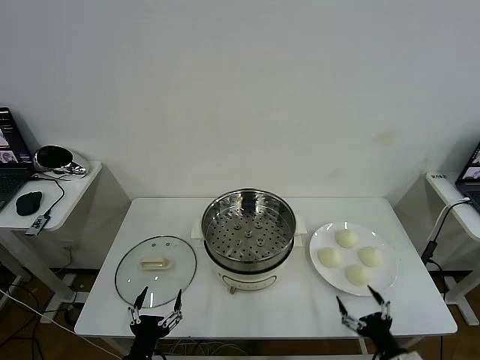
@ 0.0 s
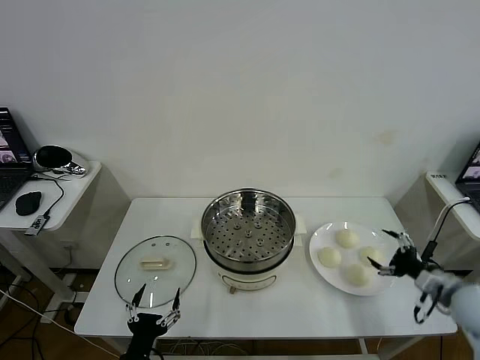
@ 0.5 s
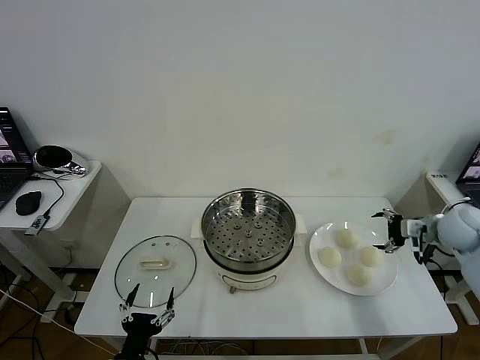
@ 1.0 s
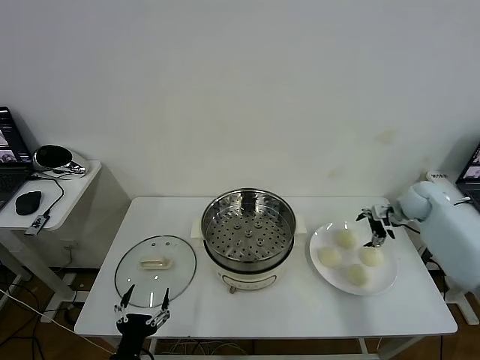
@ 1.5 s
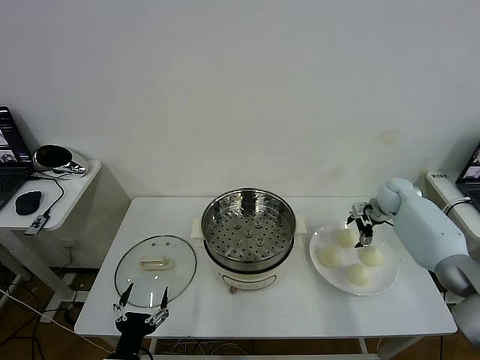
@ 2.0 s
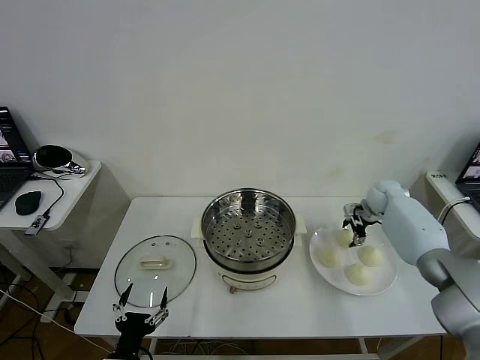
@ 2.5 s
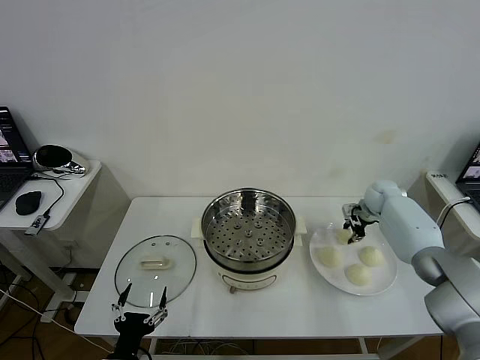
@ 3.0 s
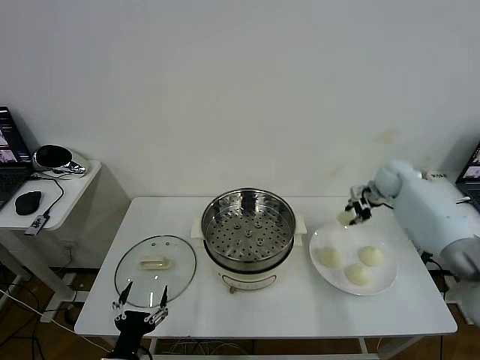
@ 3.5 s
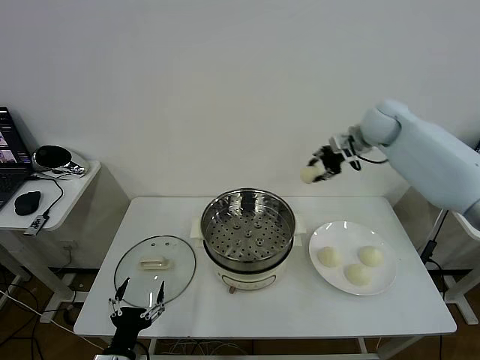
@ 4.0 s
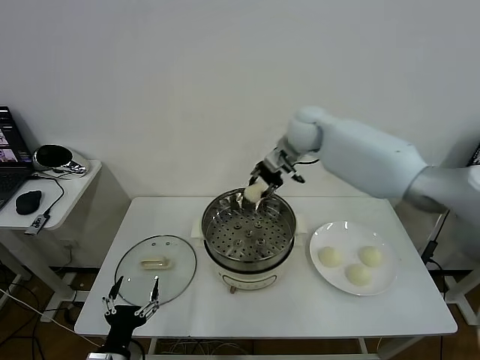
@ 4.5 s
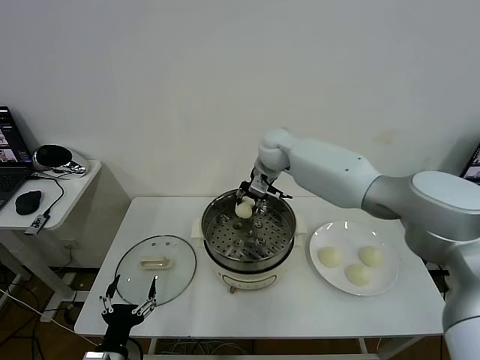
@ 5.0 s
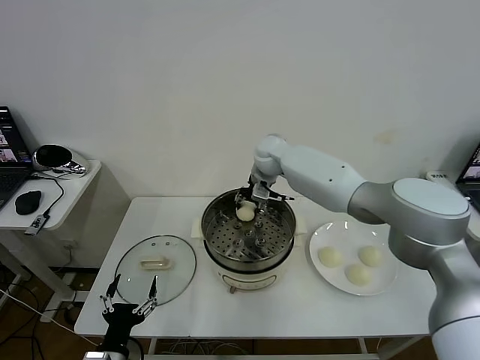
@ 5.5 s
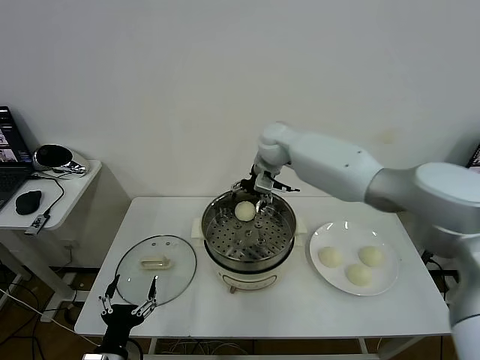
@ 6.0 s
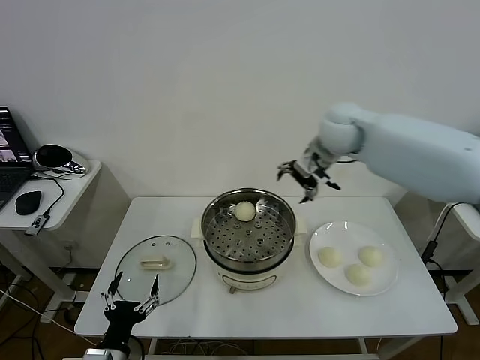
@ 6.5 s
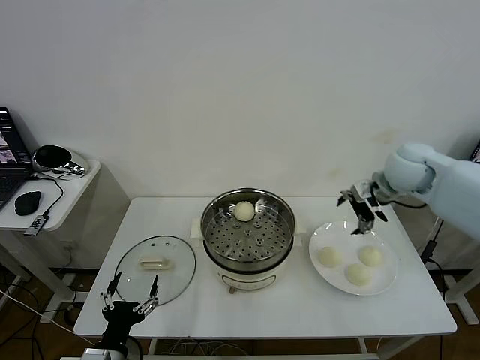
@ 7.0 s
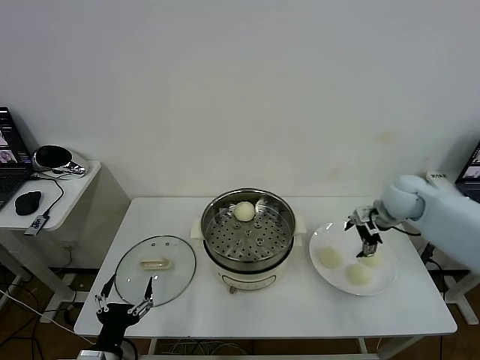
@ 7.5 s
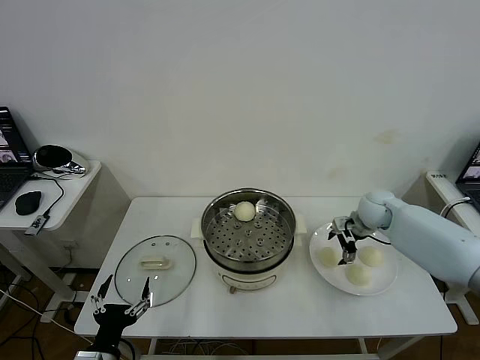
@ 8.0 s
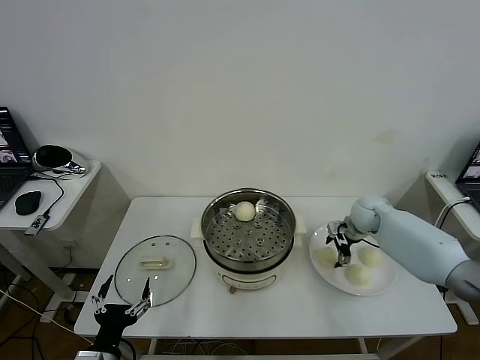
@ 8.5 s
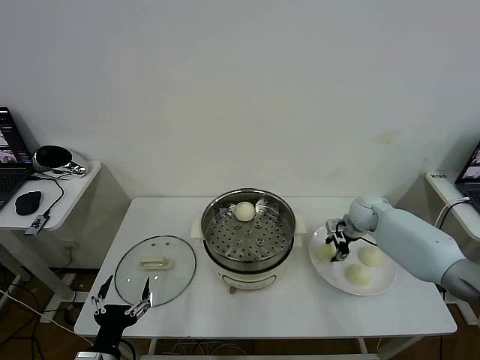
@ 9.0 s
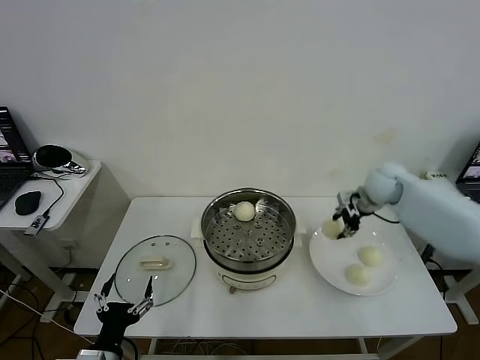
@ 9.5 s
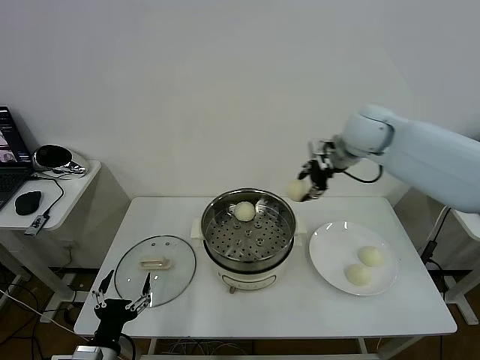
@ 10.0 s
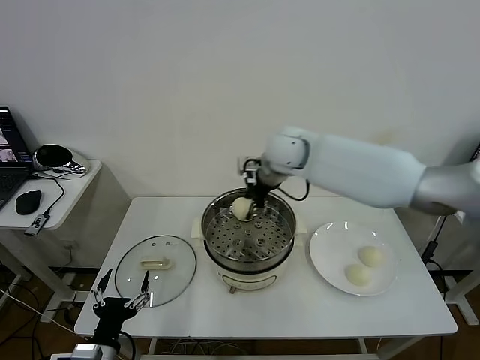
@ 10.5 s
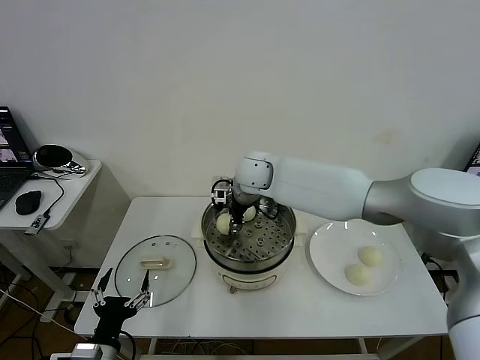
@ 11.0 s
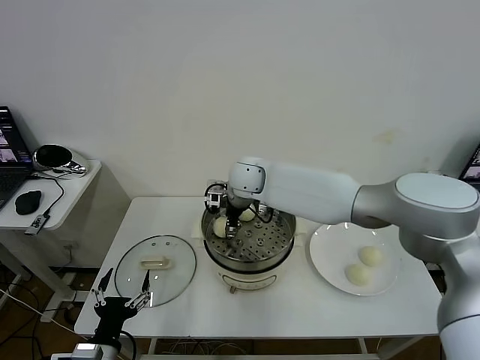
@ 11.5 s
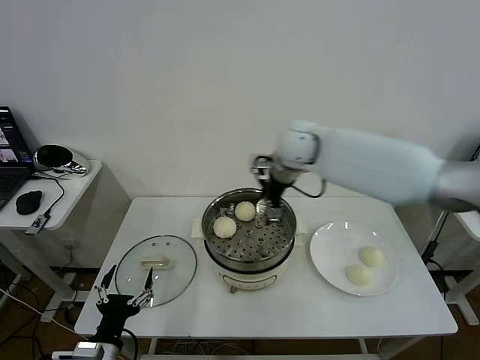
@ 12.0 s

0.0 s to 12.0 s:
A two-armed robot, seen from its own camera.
Task of the whole recording: take steamed baozi put them in steamer then cover it.
Step, 0.0 to 2.5 s: Grasp the baozi in the plate with right gripper.
Step, 3.0 to 5.5 s: Place the baozi on the steamer with right gripper.
Step, 6.0 to 8.5 s: Grasp the baozi in the plate with right gripper.
Step, 9.5 to 11.5 s: Place the baozi on the steamer with right gripper.
2.0 to 4.0 s: The right gripper moves upward and to the left, roughly 25 cm, and closes.
4.0 to 6.0 s: The right gripper heads to the left, covering about 15 cm, and opens.
6.0 to 8.0 s: The right gripper shifts about 30 cm to the right and downward.
8.0 to 10.0 s: The right gripper moves upward and to the left, roughly 25 cm, and closes.
10.0 to 12.0 s: The right gripper is displaced to the left by some 10 cm, and opens up.

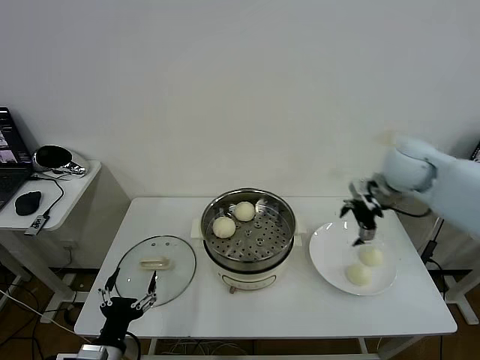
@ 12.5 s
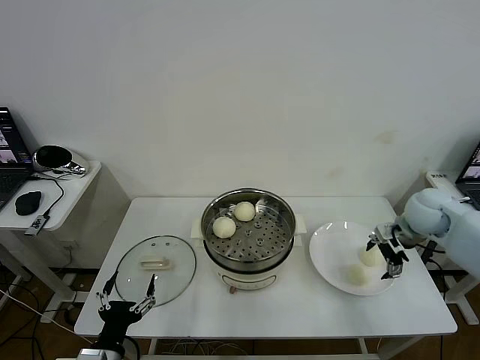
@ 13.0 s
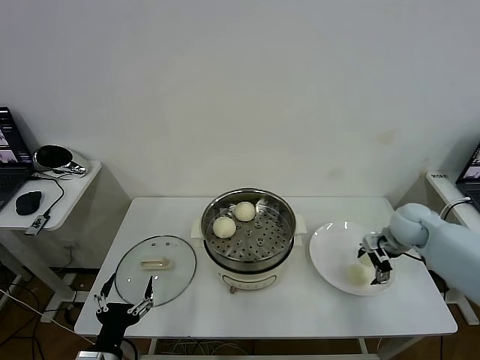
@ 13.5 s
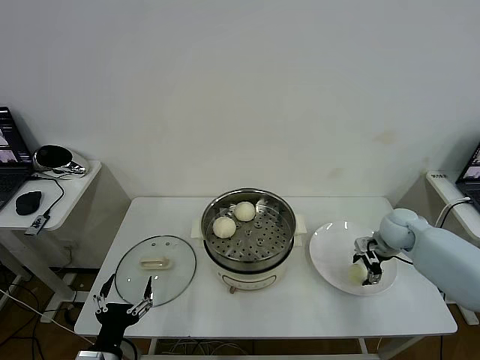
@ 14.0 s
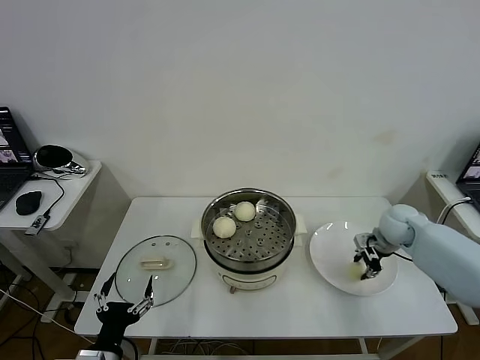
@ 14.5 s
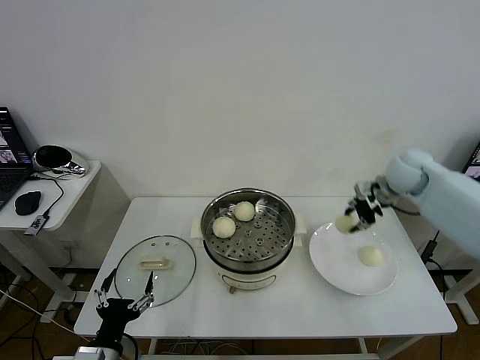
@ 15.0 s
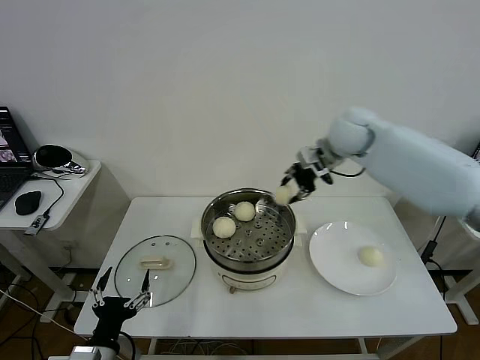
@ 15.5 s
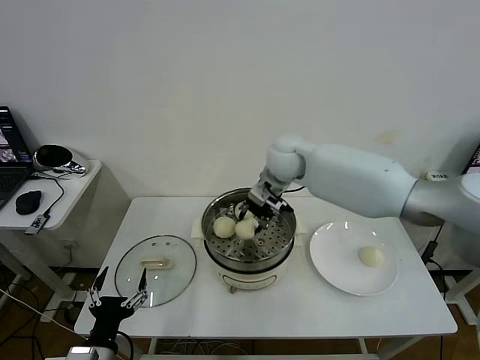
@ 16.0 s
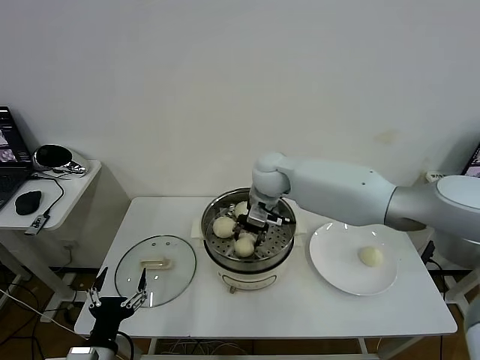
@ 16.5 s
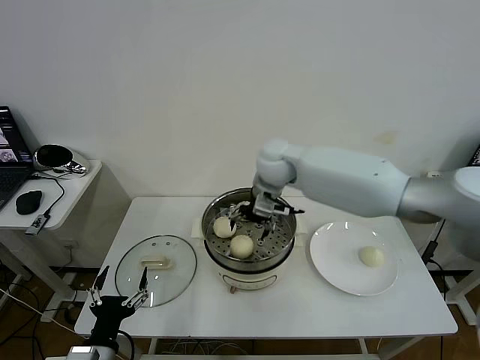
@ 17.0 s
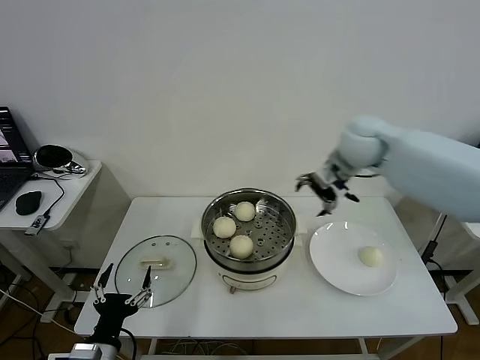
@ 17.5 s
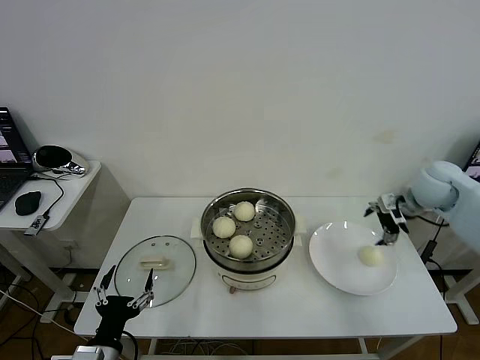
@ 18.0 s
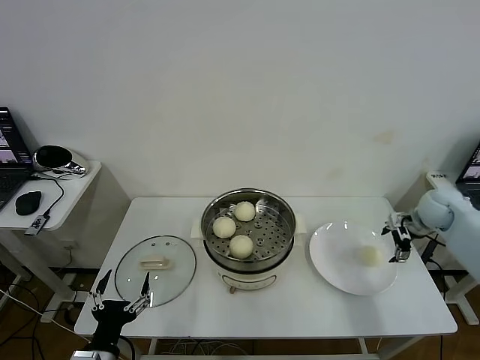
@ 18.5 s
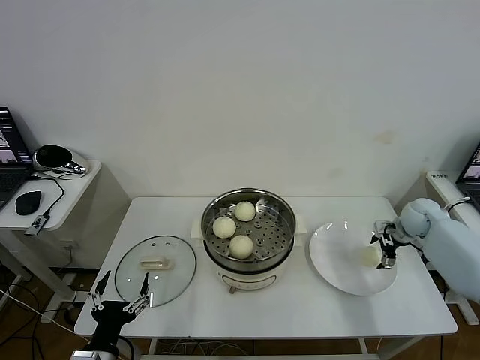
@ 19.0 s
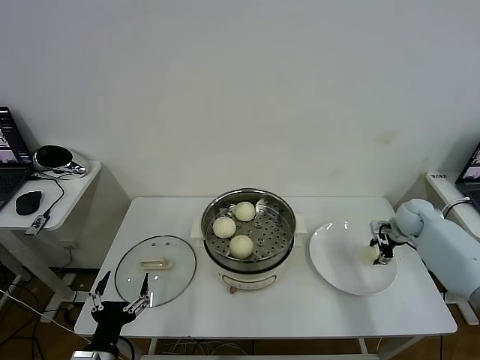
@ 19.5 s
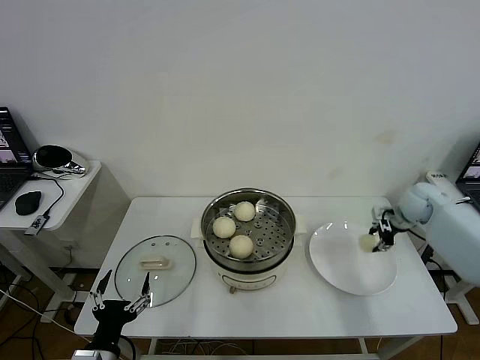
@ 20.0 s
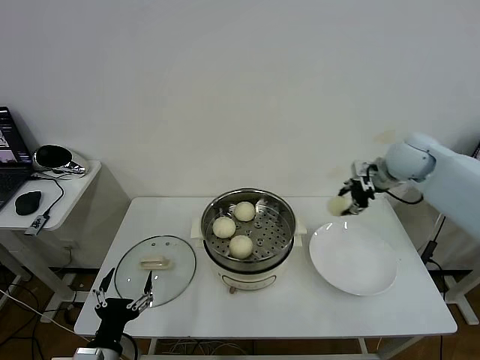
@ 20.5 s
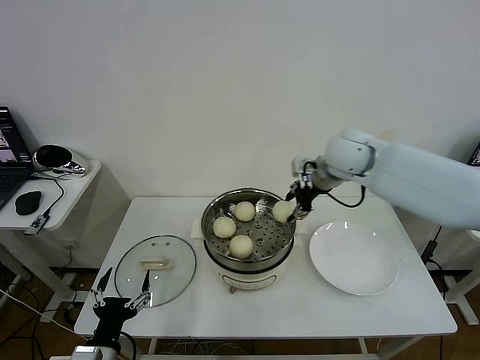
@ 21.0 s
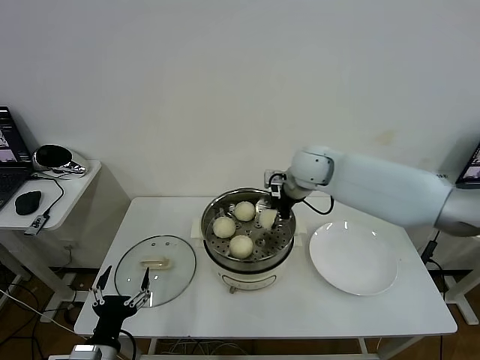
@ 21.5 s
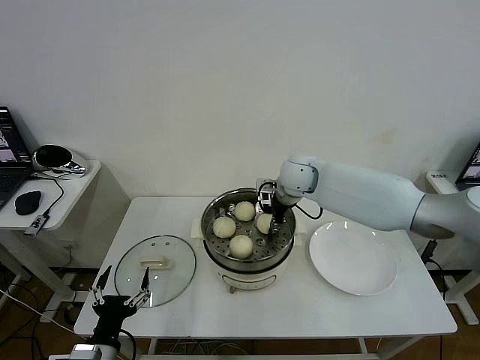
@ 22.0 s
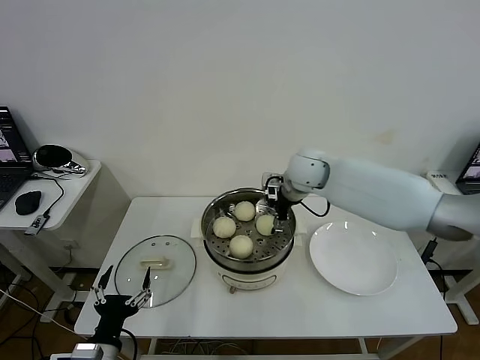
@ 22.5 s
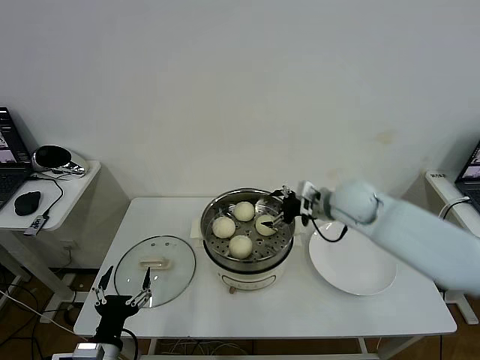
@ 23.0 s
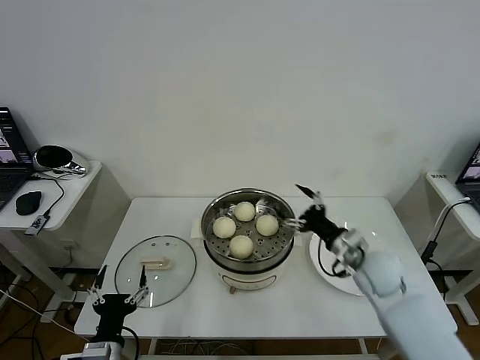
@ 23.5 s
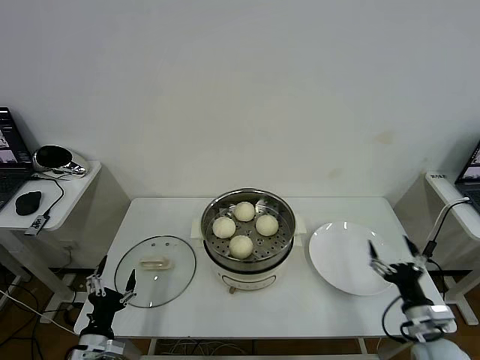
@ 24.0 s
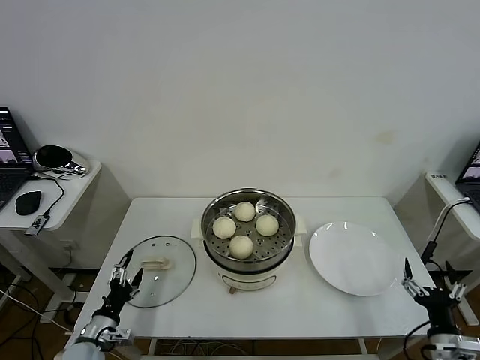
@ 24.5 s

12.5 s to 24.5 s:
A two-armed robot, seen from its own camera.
Task of the whole recording: take steamed baozi put them in steamer then cover it.
Step, 12.5 to 14.0 s: Grasp the baozi in the plate with right gripper.
Step, 15.0 to 16.5 s: Place the baozi on the steamer with right gripper.
Step, 17.0 to 19.5 s: Grasp the baozi in the plate with right gripper.
Step, 20.0 to 22.0 s: Place the baozi on the steamer with right gripper.
12.5 to 14.5 s: The right gripper heads downward, covering some 15 cm, and closes its fingers.
14.5 to 16.5 s: The right gripper shifts roughly 35 cm to the left.
16.5 to 18.5 s: The right gripper goes roughly 40 cm to the right, and opens up.
18.5 to 20.5 s: The right gripper travels upward and to the left by about 20 cm, and closes its fingers.
20.5 to 22.5 s: The right gripper shifts roughly 20 cm to the left, and opens up.
22.5 to 24.5 s: The left gripper travels downward, to the left and forward by approximately 15 cm. The right gripper shifts some 50 cm backward, to the right and downward.

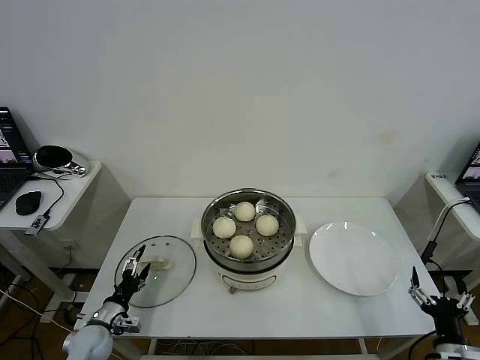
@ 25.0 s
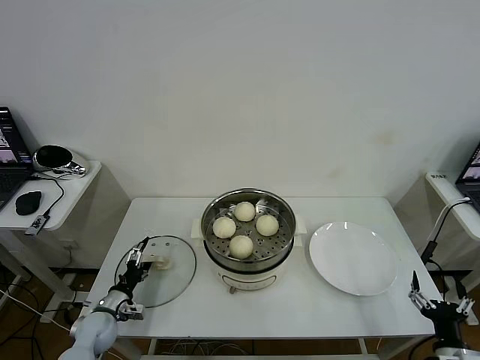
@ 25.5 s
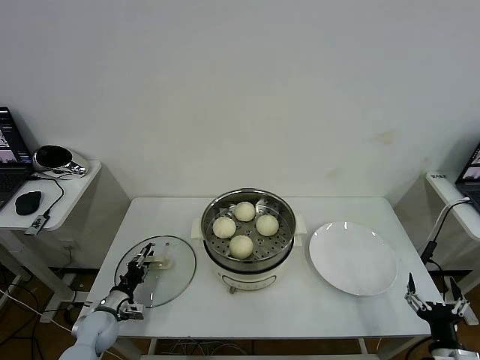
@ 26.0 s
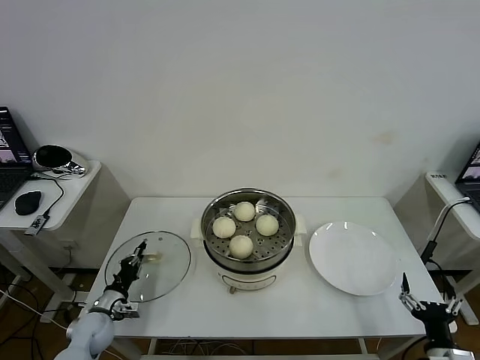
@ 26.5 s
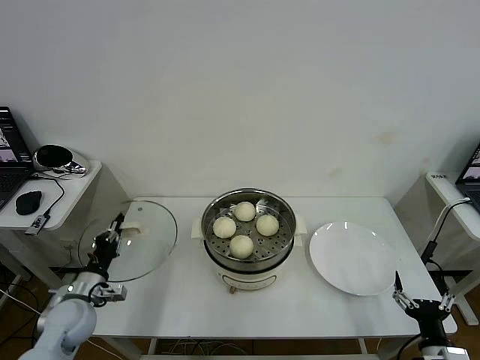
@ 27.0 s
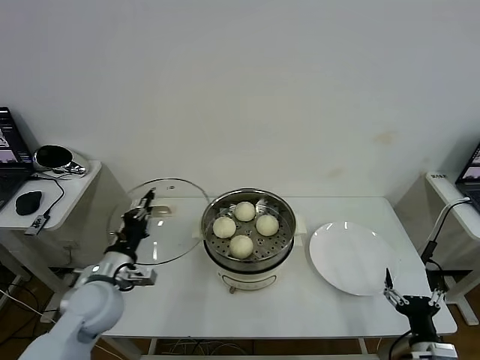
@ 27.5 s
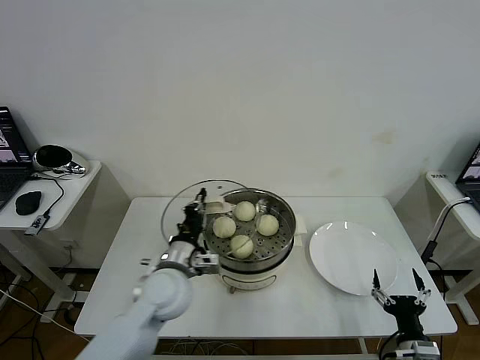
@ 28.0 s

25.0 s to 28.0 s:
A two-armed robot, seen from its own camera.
Task of the whole recording: take steamed baozi put them in steamer then cover it.
25.0 to 26.5 s: The left gripper closes.
26.5 to 28.0 s: The left gripper goes approximately 30 cm to the right and upward.
